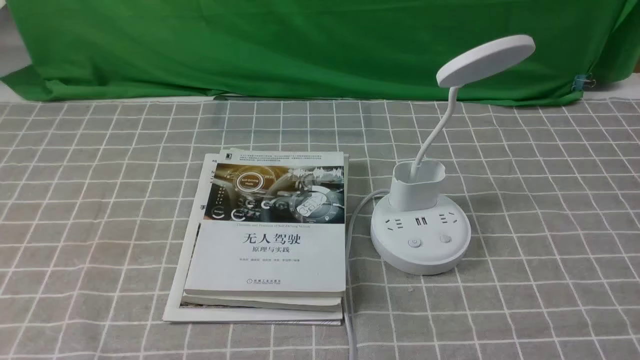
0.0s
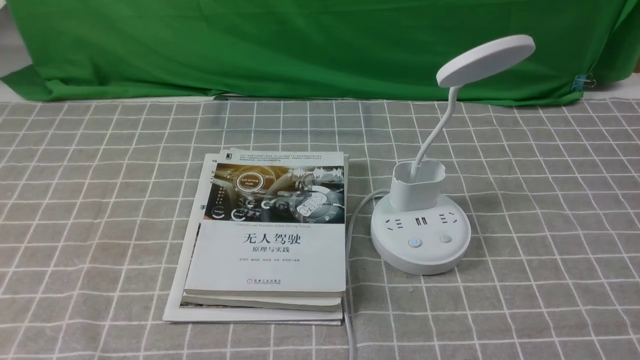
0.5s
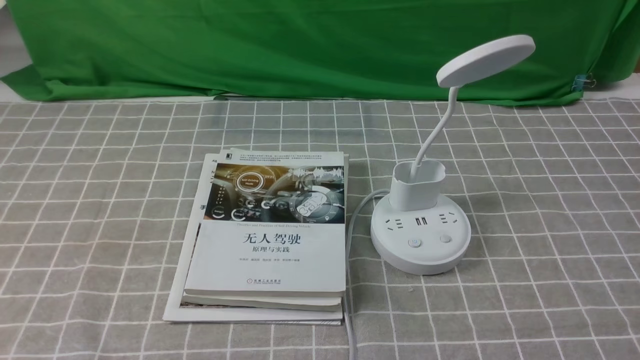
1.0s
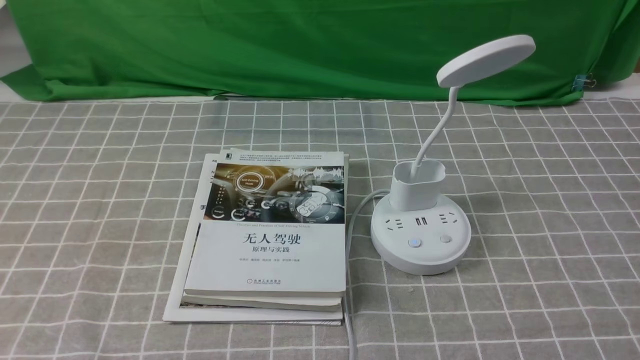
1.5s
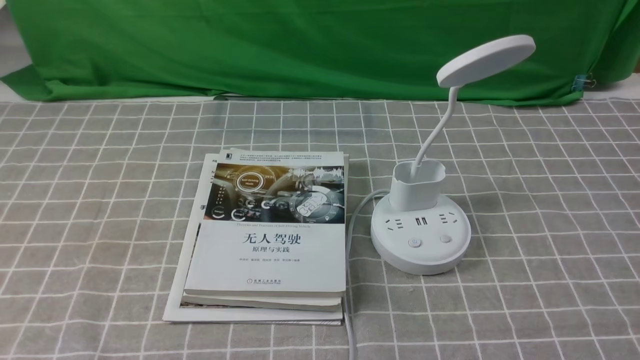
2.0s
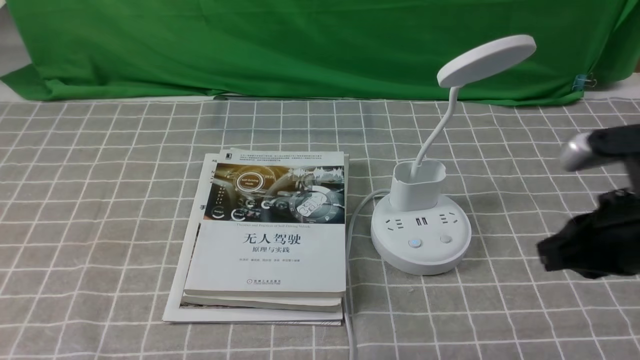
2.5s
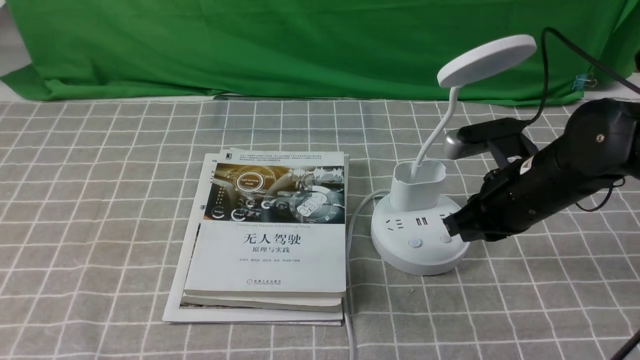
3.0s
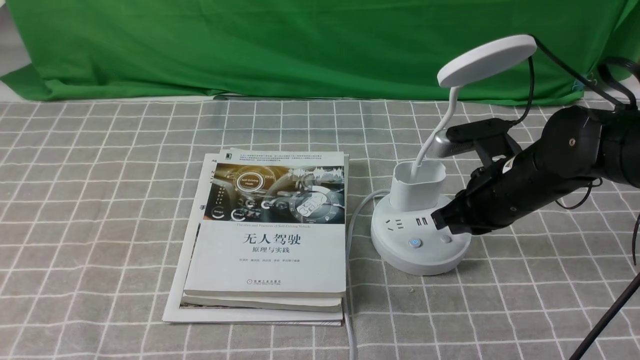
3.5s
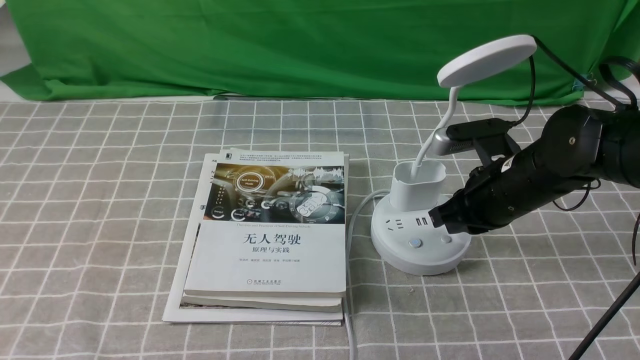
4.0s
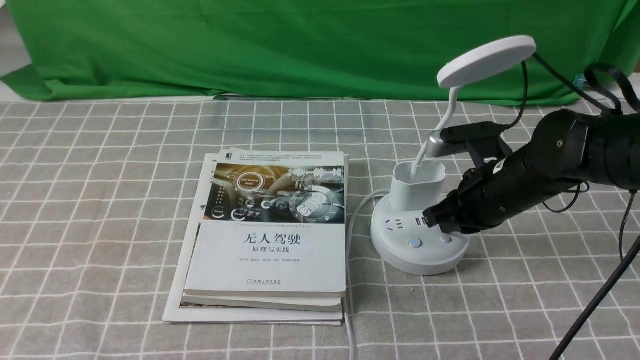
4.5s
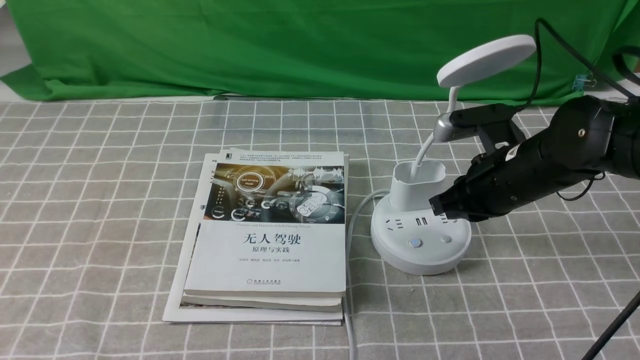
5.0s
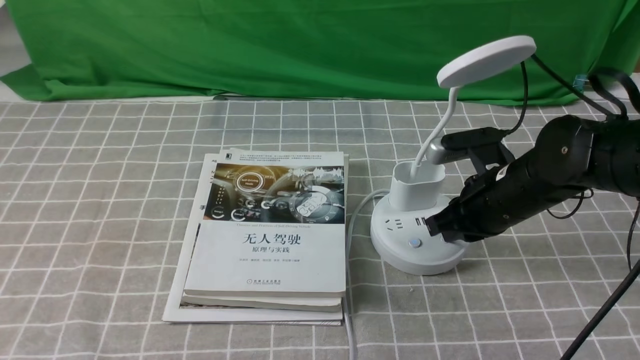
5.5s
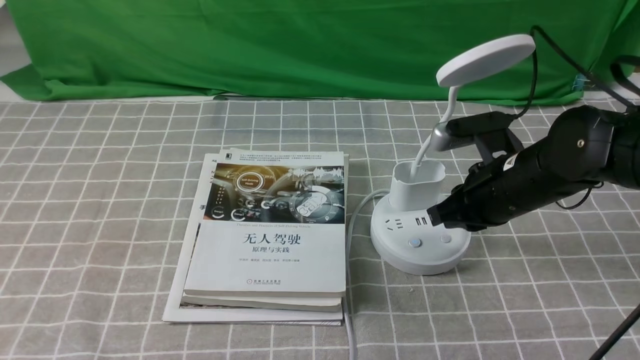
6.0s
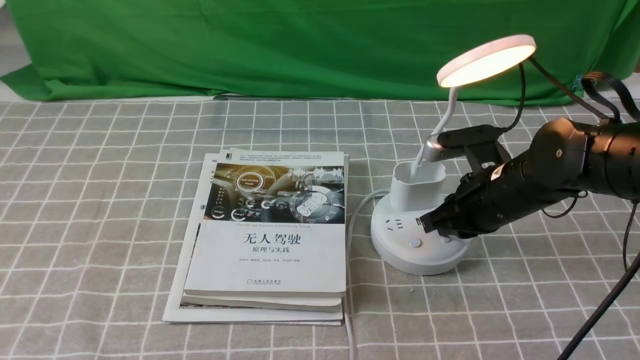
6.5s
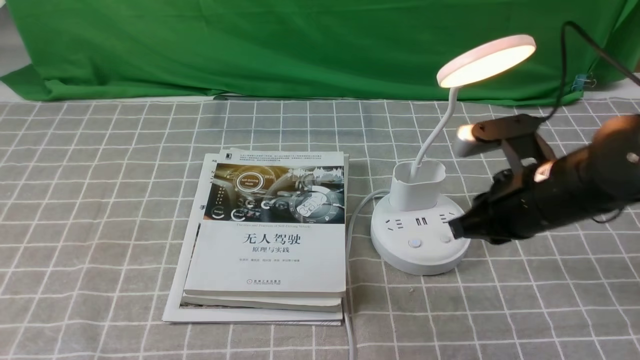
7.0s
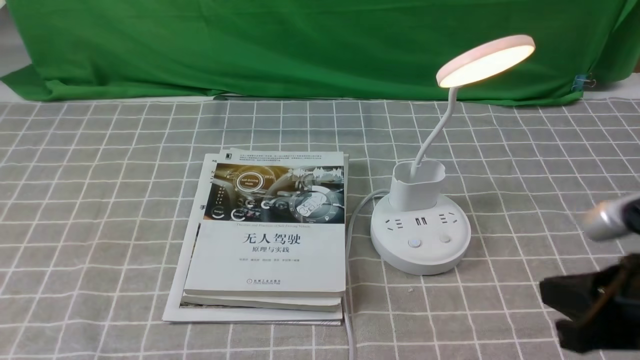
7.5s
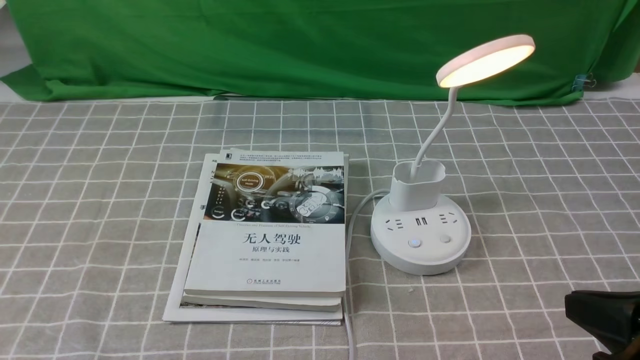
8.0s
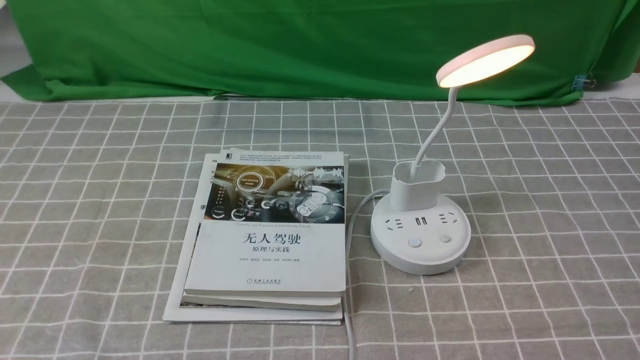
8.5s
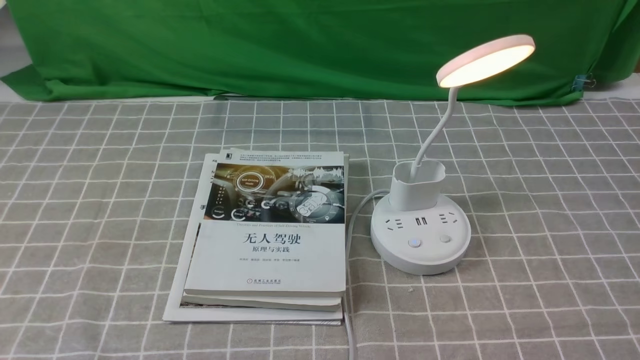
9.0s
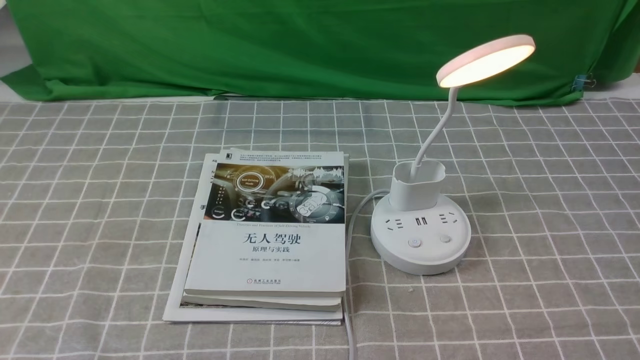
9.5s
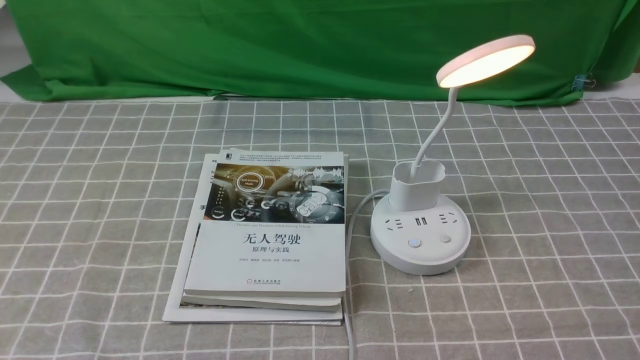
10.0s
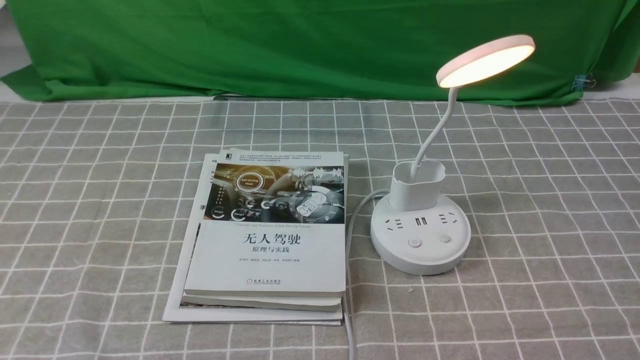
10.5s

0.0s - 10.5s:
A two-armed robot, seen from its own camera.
Step, 0.0s - 6.5s: use the right arm to press the button switch on the lamp holder.
2.0s - 4.0s: The right gripper moves forward and to the left, some 30 cm, and closes its fingers.
4.0s - 6.5s: Both grippers stay about where they are.
6.5s - 8.5s: The right gripper heads backward and to the right, covering some 30 cm.

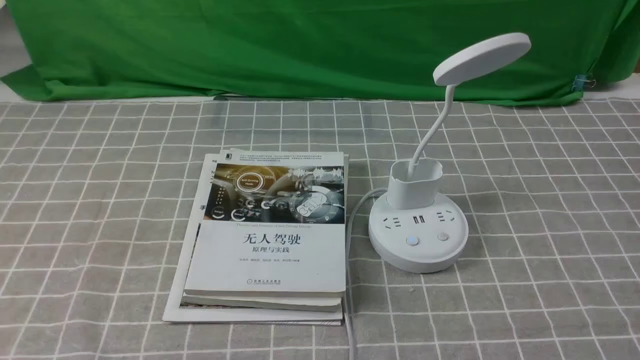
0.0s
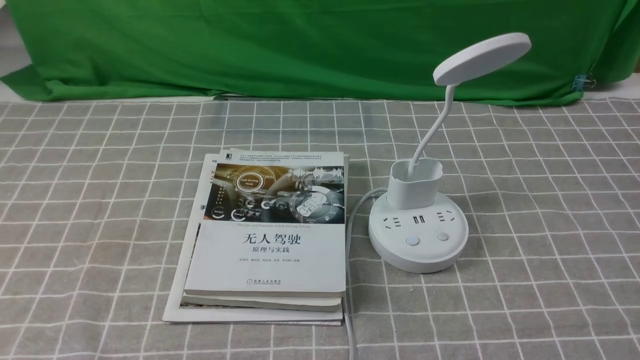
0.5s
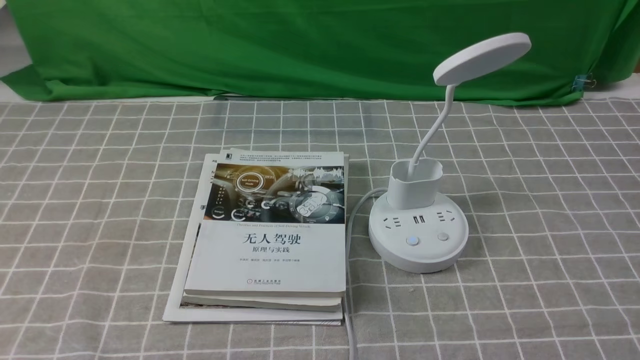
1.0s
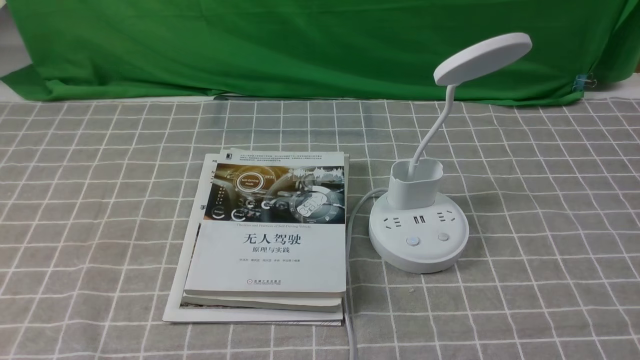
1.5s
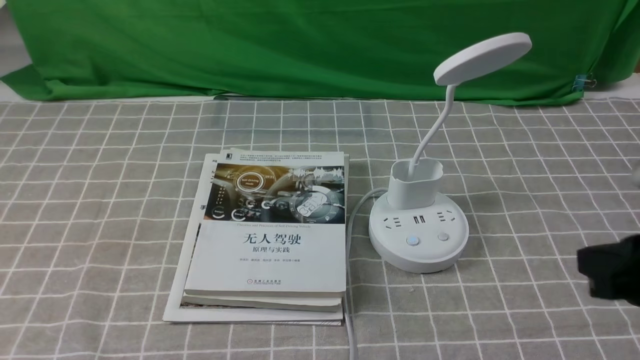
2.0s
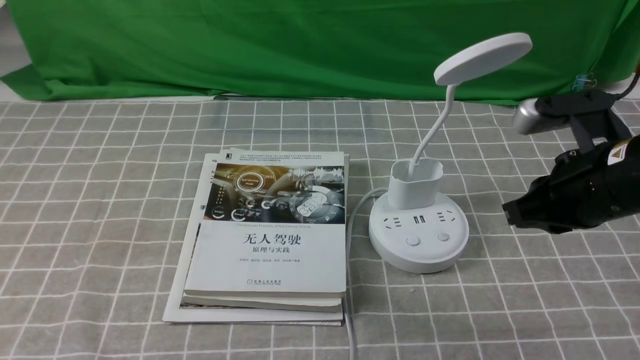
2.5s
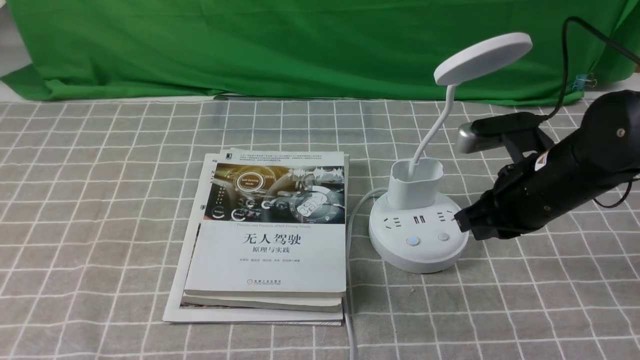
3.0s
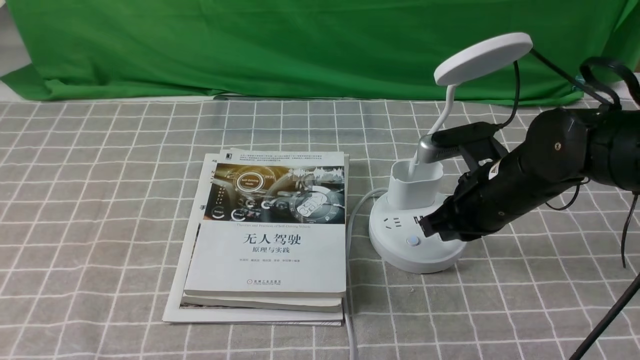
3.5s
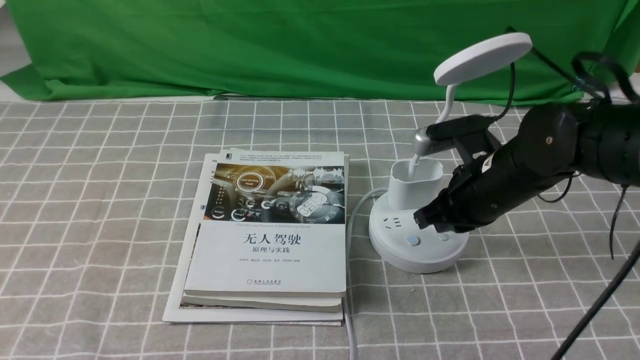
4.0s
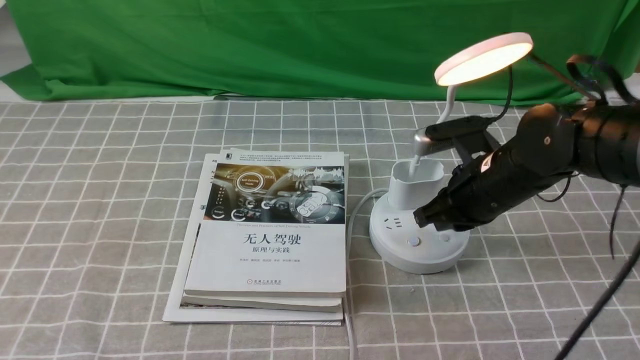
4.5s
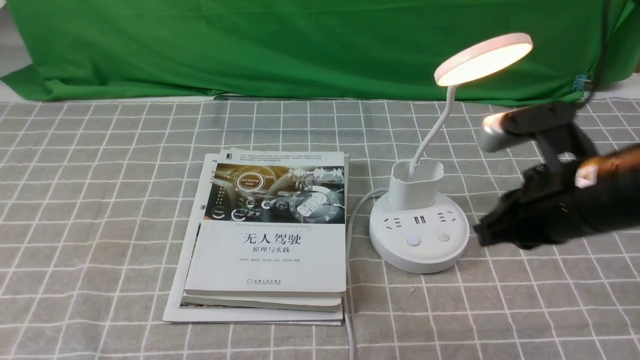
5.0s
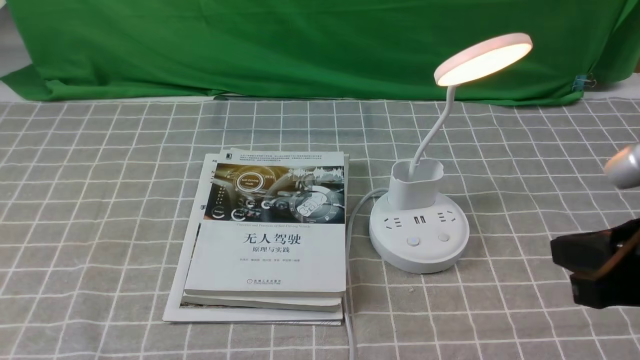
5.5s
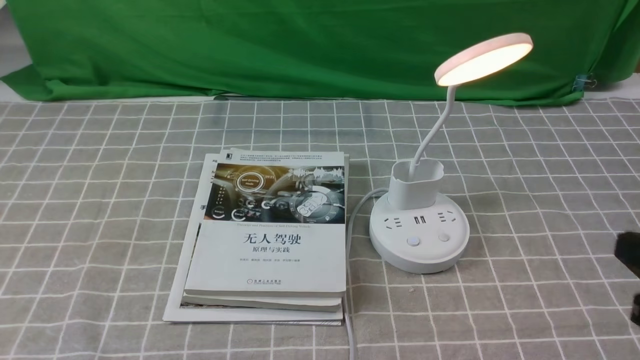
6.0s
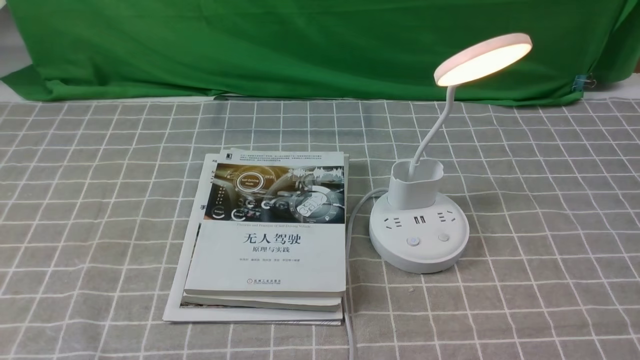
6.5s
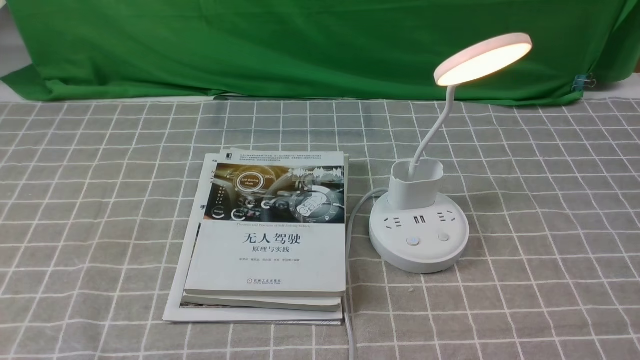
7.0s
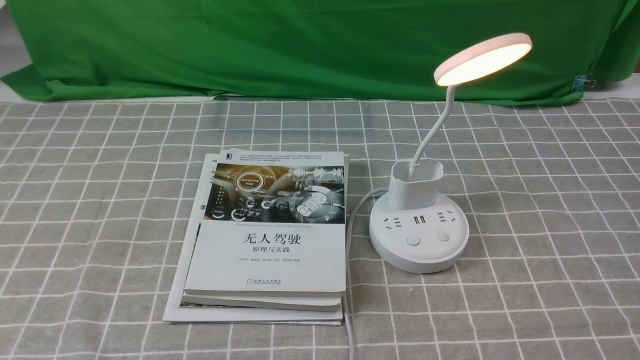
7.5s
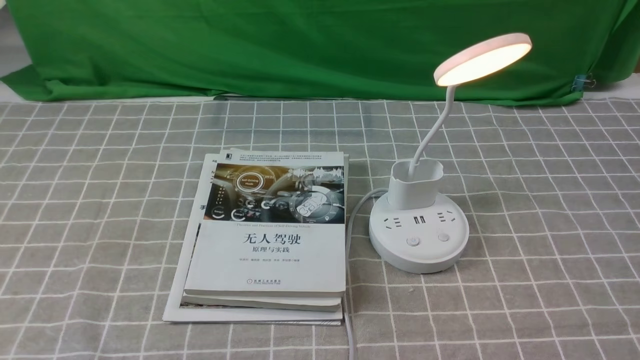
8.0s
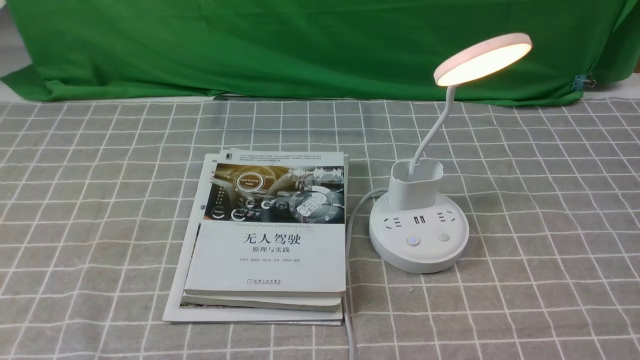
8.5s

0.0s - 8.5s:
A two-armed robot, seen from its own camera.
Step, 0.0s - 4.5s: use the right arm to press the button switch on the lamp holder.
0.0s - 2.0s: The right gripper goes about 15 cm forward, upward and to the left, and closes its fingers.
2.0s - 4.0s: The right gripper heads forward, downward and to the left, covering approximately 20 cm.
4.0s - 6.5s: The right gripper is displaced backward and to the right by some 30 cm.

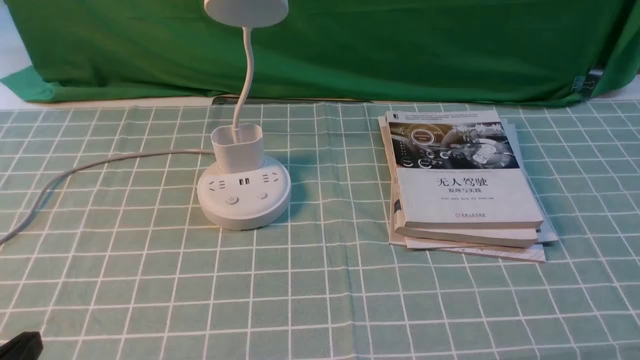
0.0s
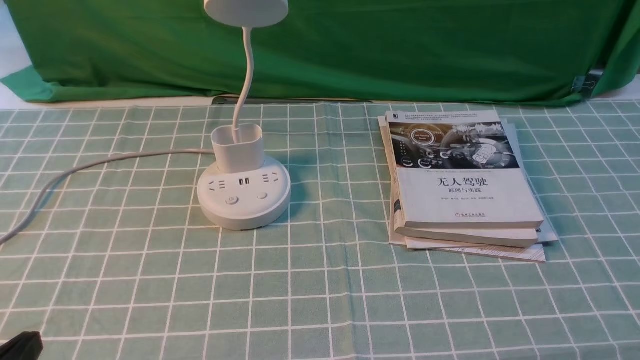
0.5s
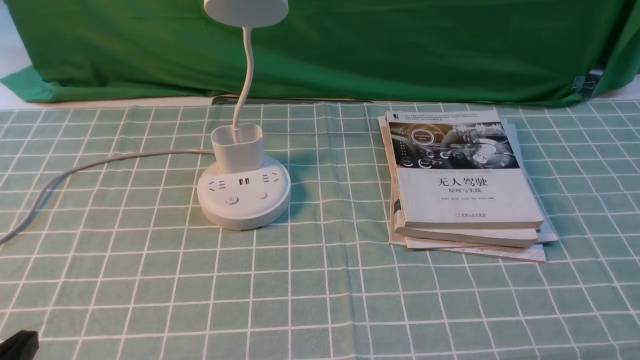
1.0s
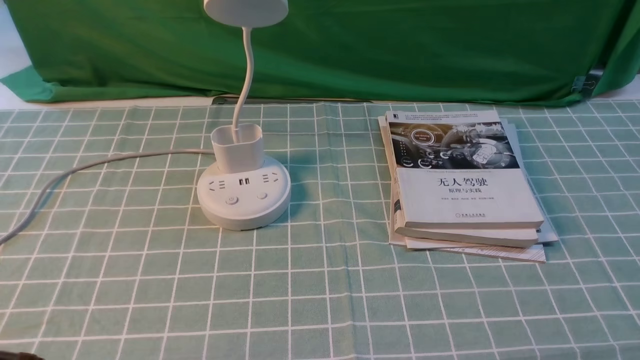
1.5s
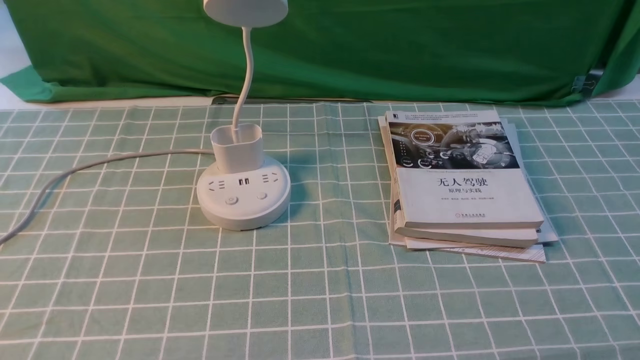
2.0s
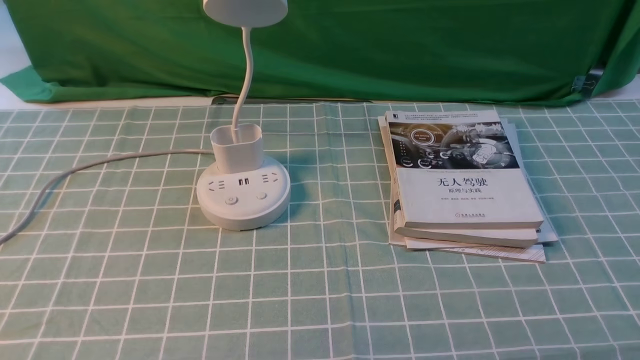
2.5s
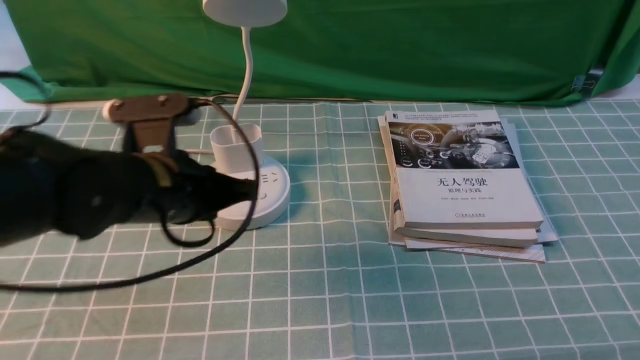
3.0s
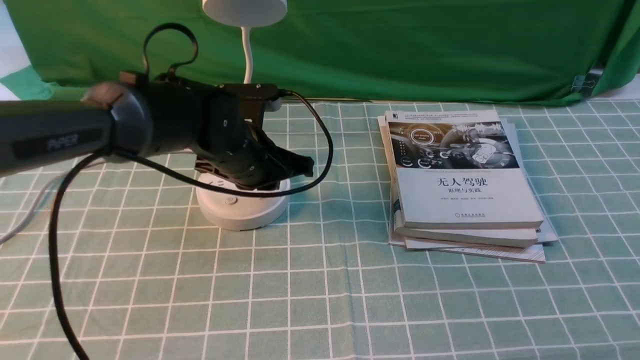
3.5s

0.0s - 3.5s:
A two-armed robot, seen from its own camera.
2.0s - 3.5s: The left gripper goes some 35 cm forward and to the right.
